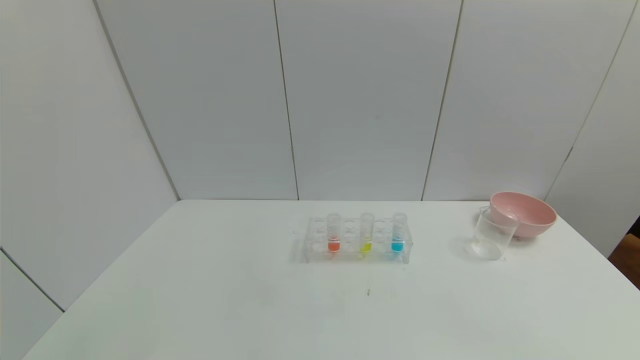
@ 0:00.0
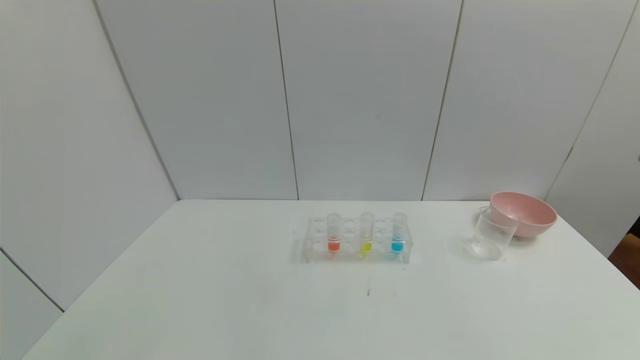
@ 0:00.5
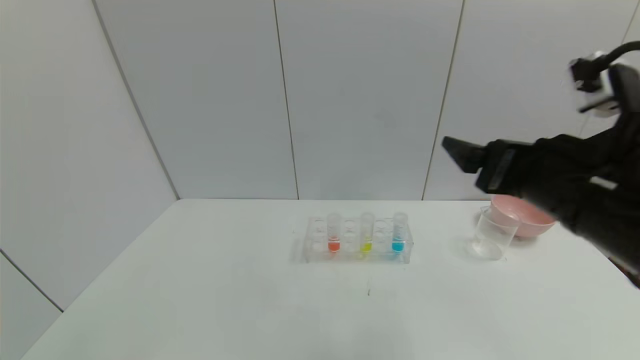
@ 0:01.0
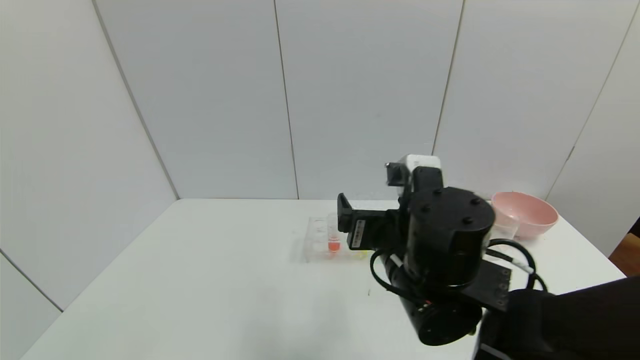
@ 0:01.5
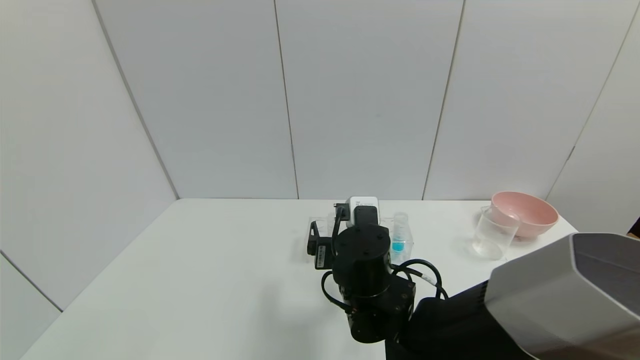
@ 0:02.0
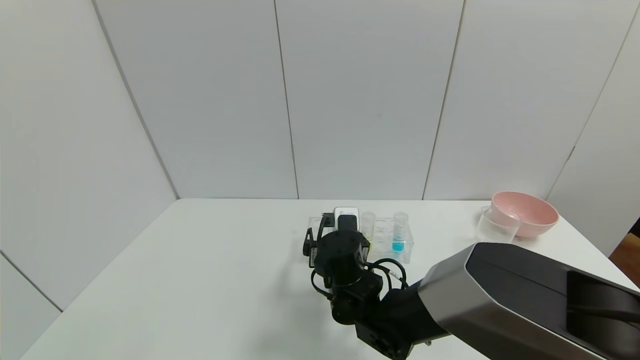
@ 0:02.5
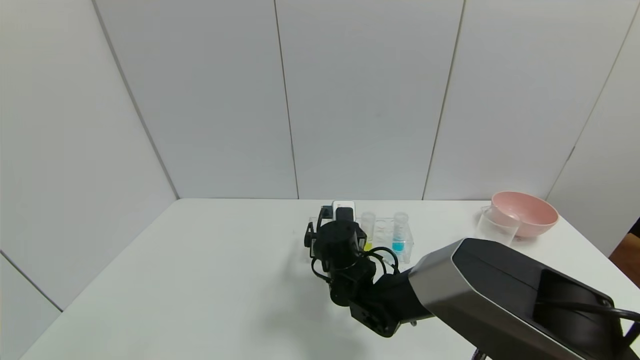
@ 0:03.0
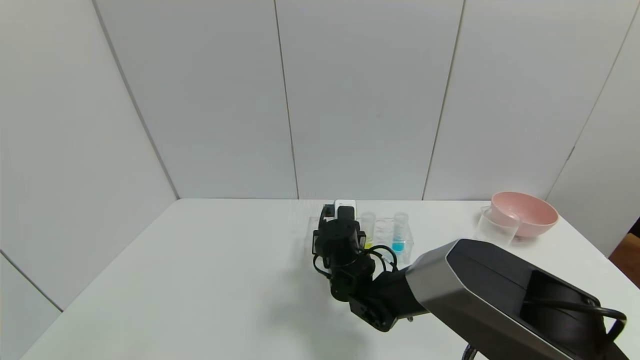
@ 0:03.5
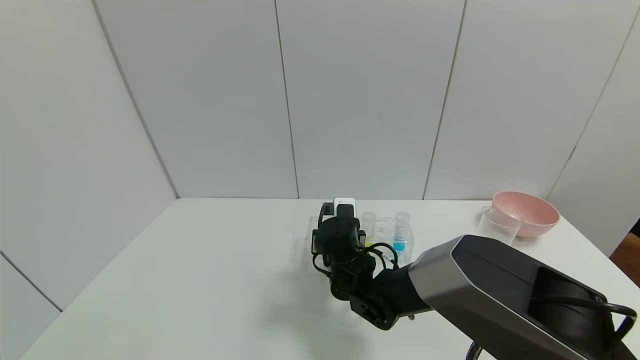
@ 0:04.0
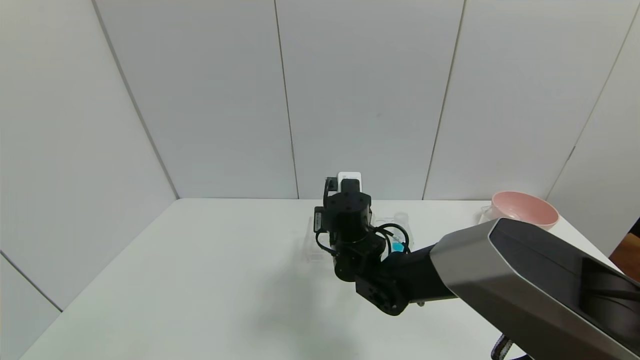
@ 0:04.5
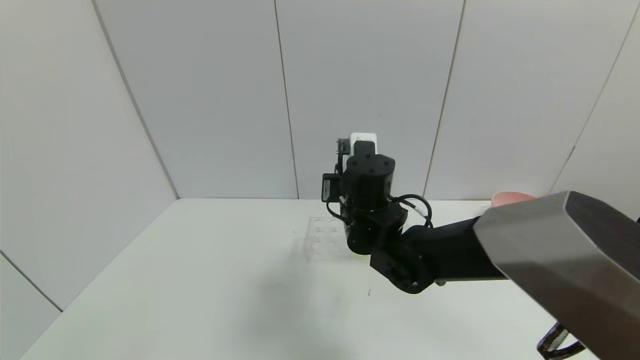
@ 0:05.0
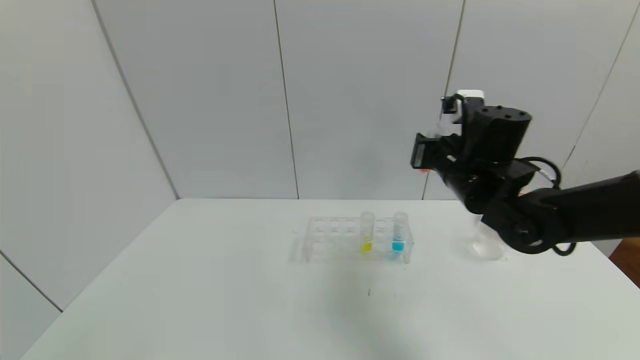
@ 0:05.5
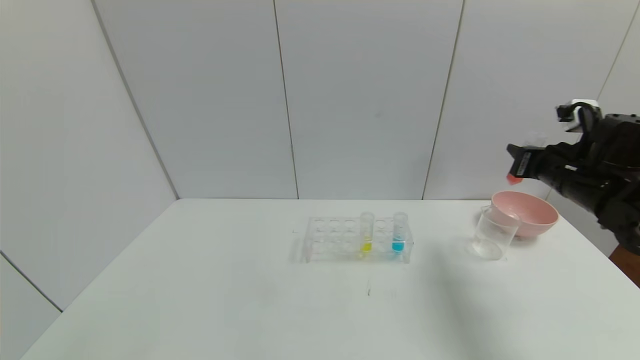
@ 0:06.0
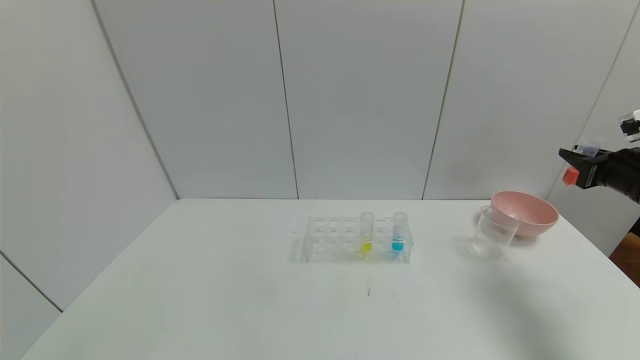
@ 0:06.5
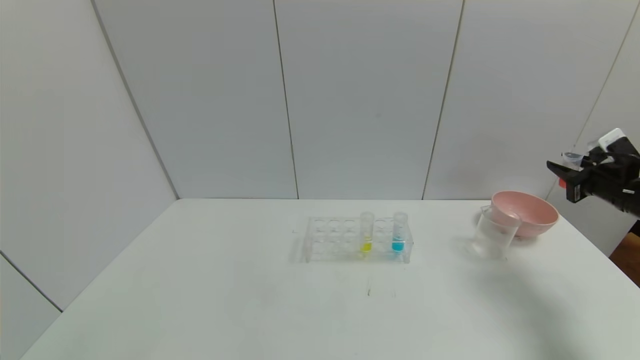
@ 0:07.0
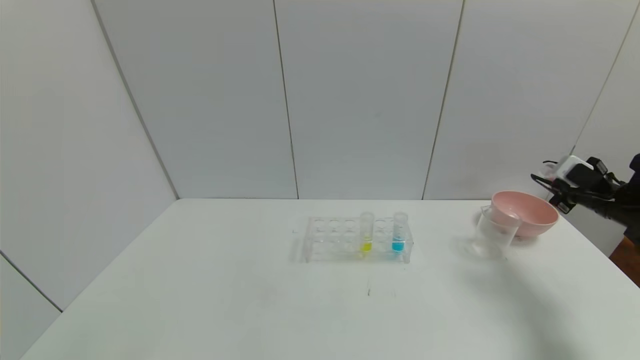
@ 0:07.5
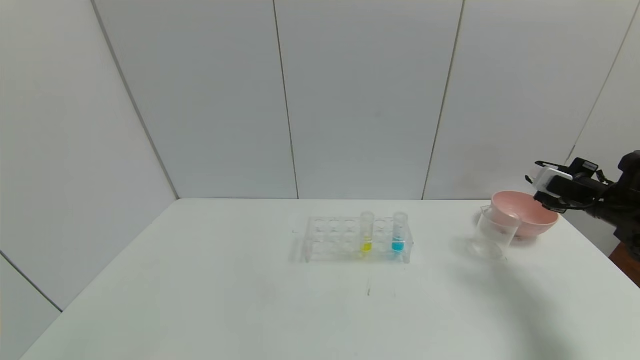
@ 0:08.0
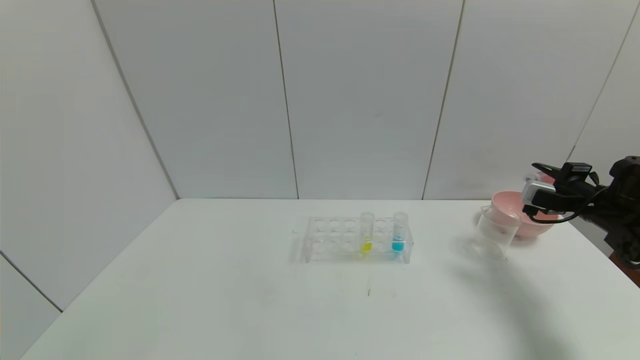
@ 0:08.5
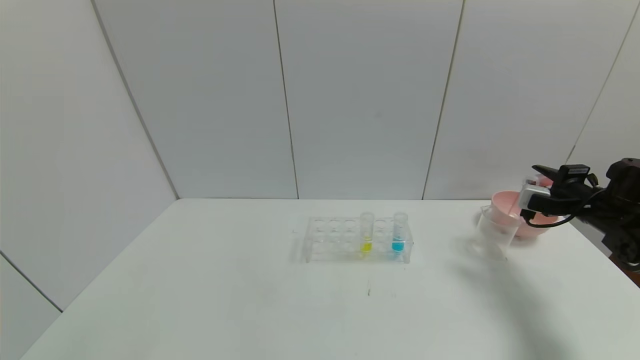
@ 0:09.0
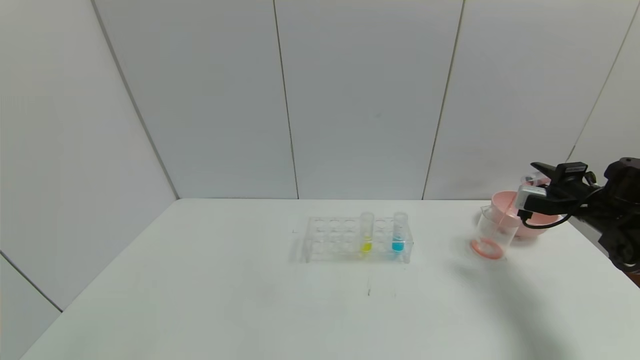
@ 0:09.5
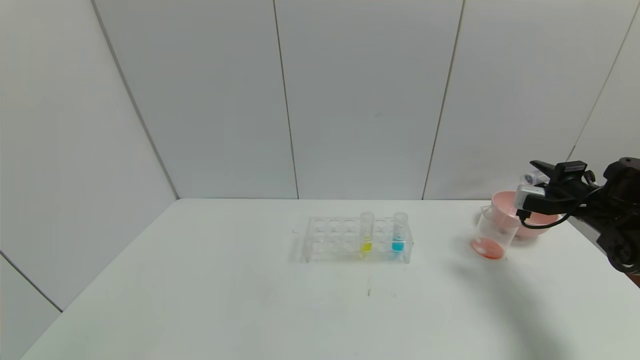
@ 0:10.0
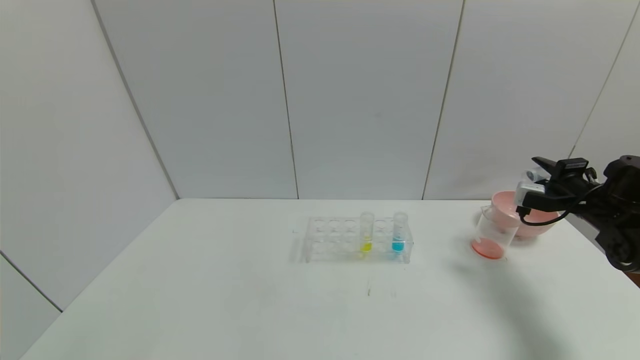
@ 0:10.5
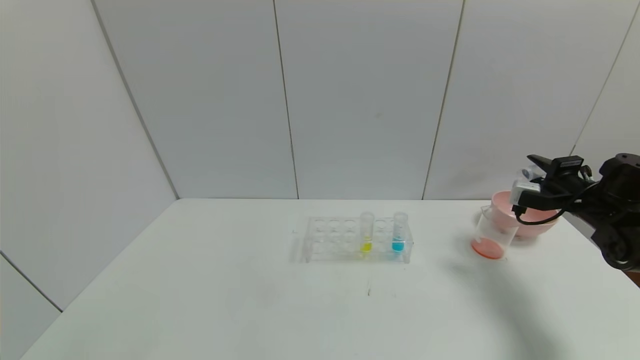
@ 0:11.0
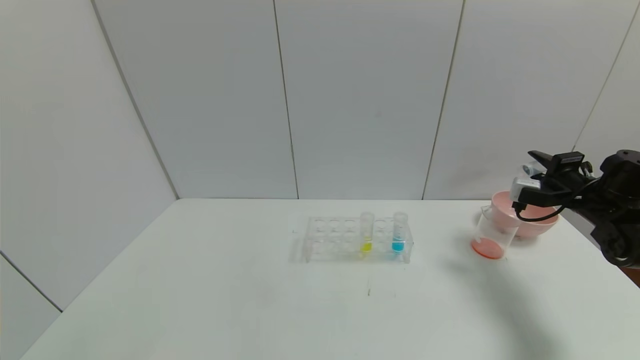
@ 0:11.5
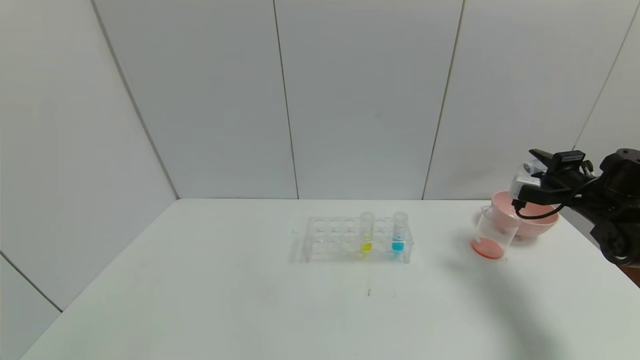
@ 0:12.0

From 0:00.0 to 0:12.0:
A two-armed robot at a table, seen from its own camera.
Task of the whole recording: pick up the test tube with yellow pigment and the test tube with red pigment by grippers and pour them into the beaker.
Step, from 0:00.0 to 0:03.5: Grasp the red reagent with the right gripper.
Step, from 0:04.0 to 0:10.0: Pour the red reagent into the graduated cylinder with the right gripper.
From 0:00.0 to 0:02.0: The right gripper moves to the left and forward, about 40 cm.
From 0:02.0 to 0:04.0: The right gripper shifts approximately 10 cm forward and downward, and closes up.
From 0:04.0 to 0:06.0: The right gripper heads to the right and upward, covering about 35 cm.
From 0:06.0 to 0:08.0: The right gripper heads to the right and downward, covering about 15 cm.
From 0:10.0 to 0:12.0: The grippers make only small movements.

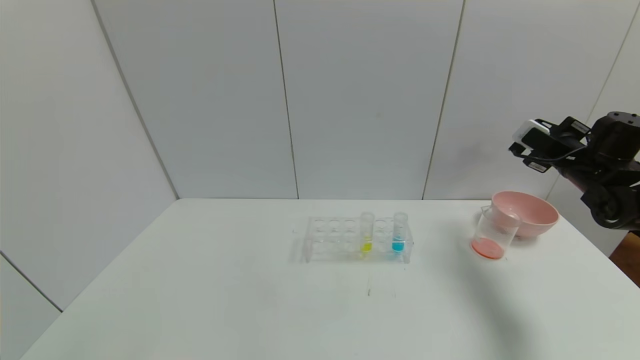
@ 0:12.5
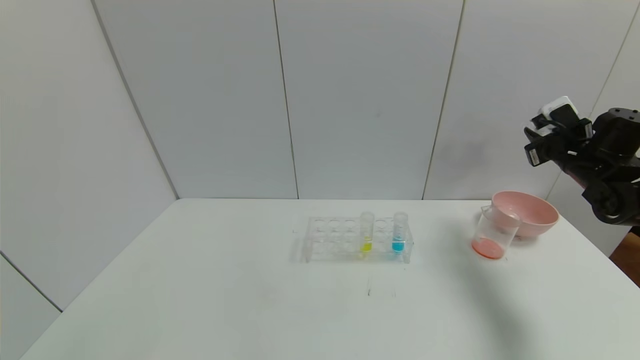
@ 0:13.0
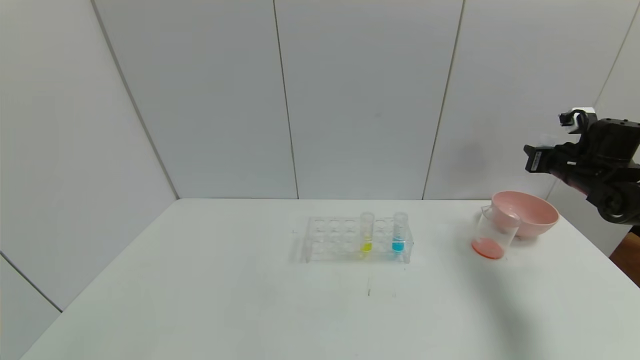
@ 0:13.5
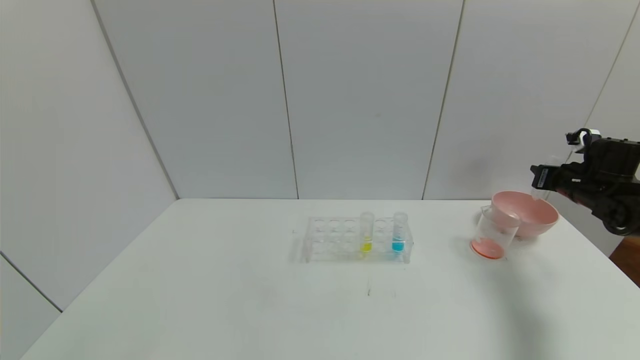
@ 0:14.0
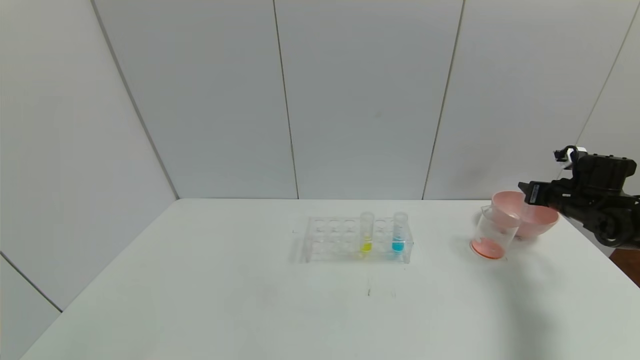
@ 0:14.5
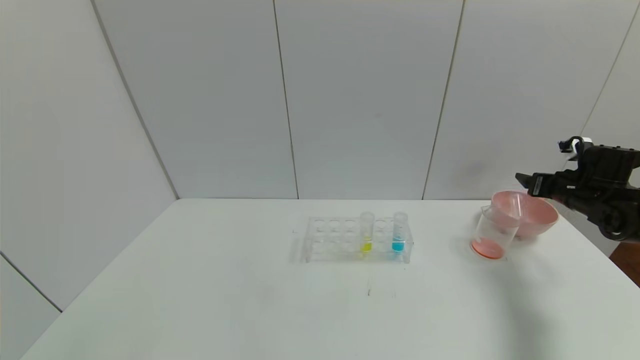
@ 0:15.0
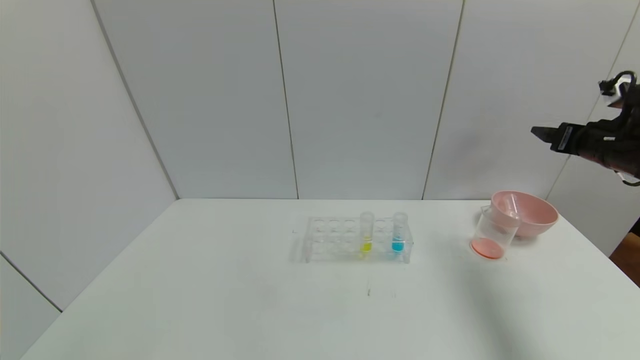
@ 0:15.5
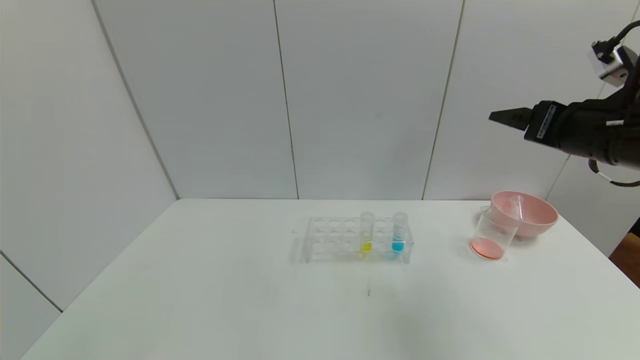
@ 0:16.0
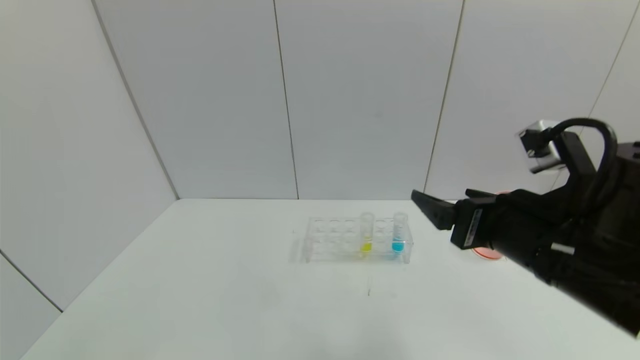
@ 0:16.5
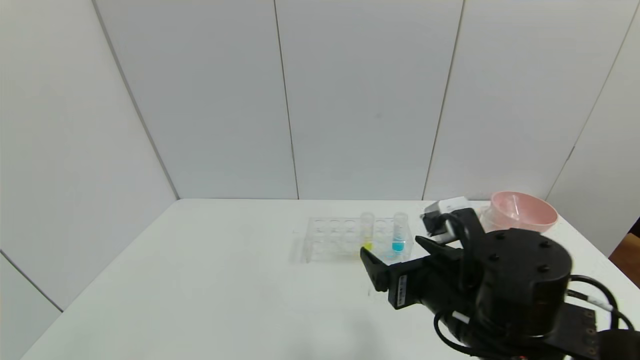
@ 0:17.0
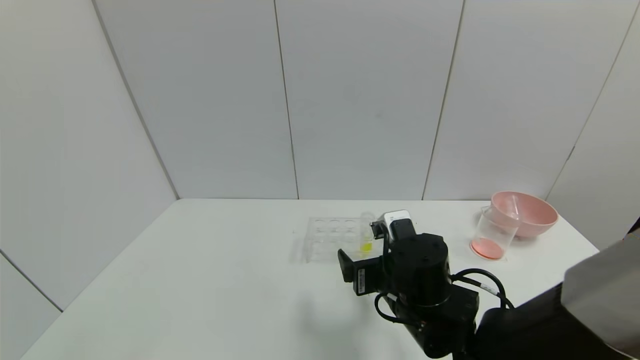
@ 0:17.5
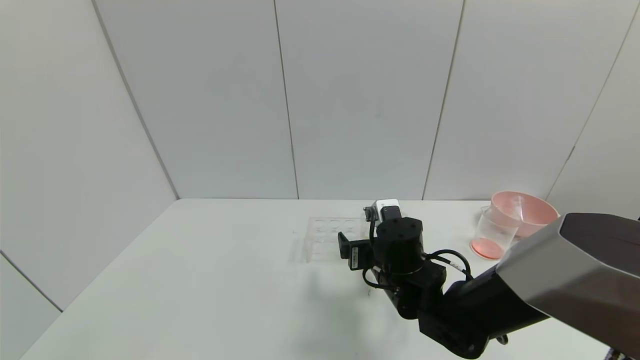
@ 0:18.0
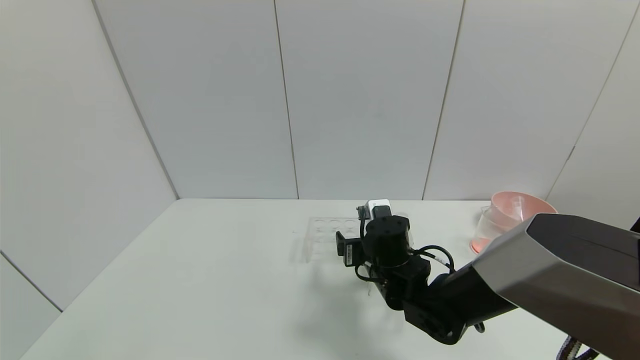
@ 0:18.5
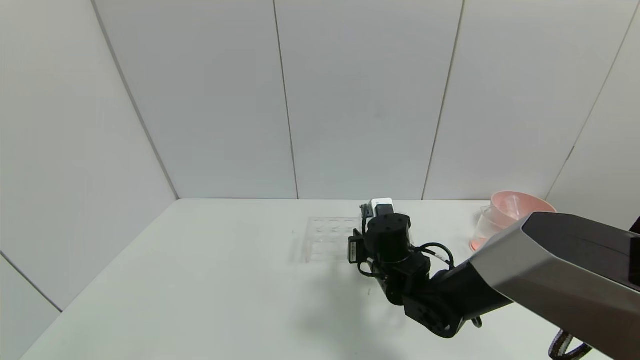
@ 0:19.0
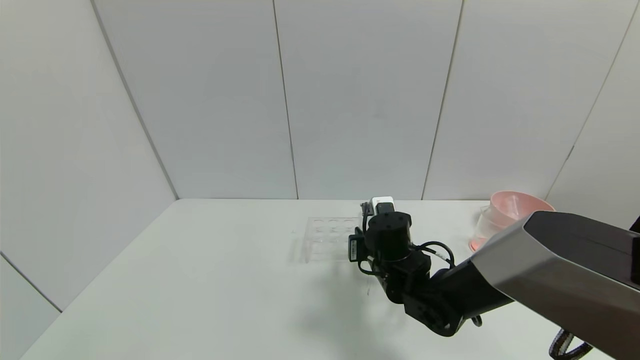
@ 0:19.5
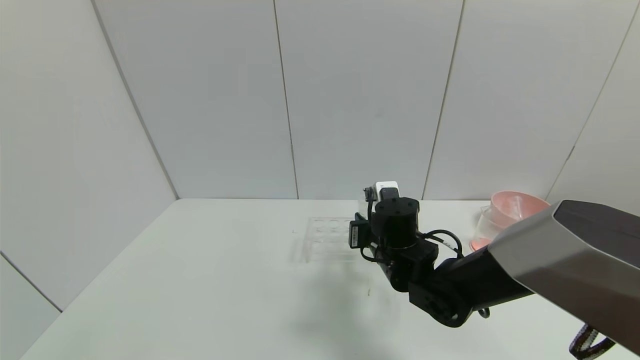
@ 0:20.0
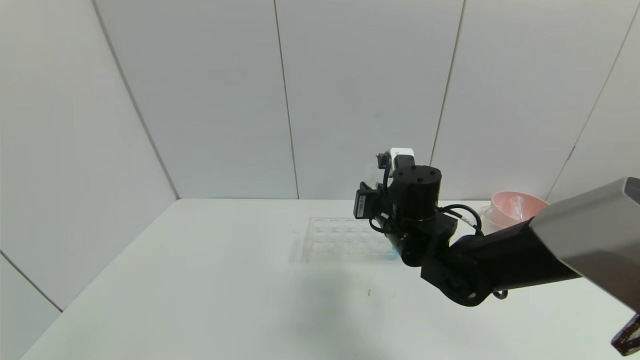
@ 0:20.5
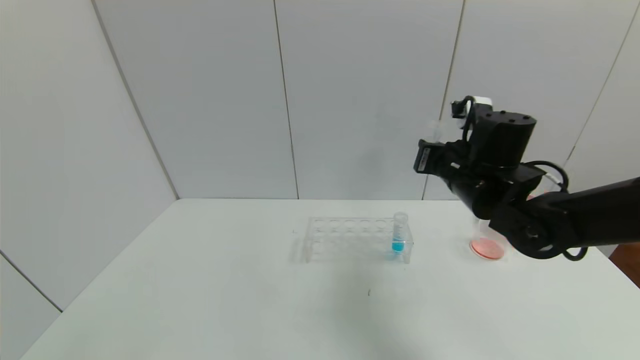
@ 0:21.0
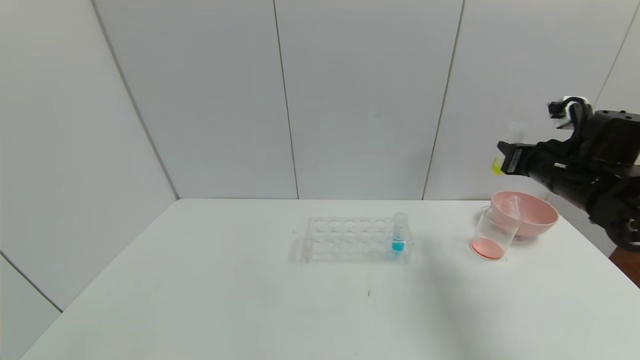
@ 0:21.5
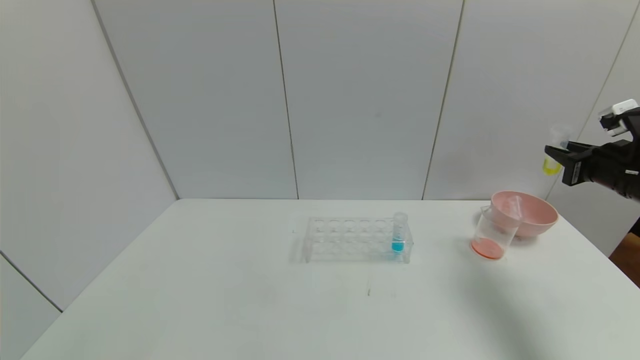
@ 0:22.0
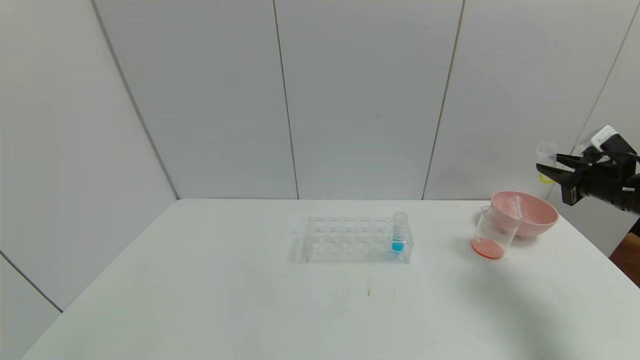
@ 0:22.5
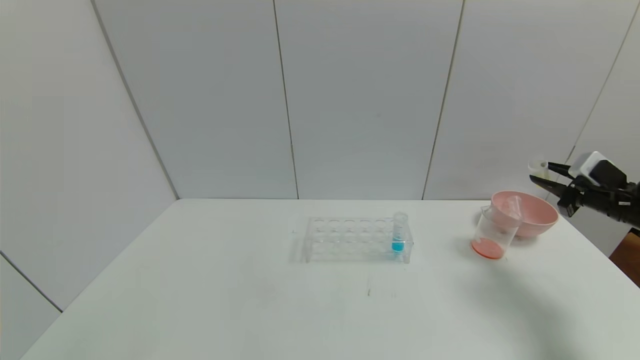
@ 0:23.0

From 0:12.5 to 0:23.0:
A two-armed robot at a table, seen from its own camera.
Task of the whole recording: pick up the test tube with yellow pigment and the test tube with red pigment by grippers and pour them into the beaker.
Step, from 0:12.5 to 0:14.5: Place the test tube into the bowl with the right gripper.
Step, from 0:15.0 to 0:19.0: Grasp the yellow reagent with the right gripper.
From 0:12.5 to 0:14.5: The right gripper shifts approximately 10 cm downward, and opens its fingers.
From 0:14.5 to 0:16.5: The right gripper shifts some 35 cm to the left and backward, and opens its fingers.
From 0:16.5 to 0:19.0: The right gripper shifts roughly 25 cm downward, forward and to the left, and closes its fingers.
From 0:19.0 to 0:21.0: The right gripper travels upward and to the right by about 20 cm.
From 0:21.0 to 0:23.0: The right gripper moves to the right, roughly 25 cm.
